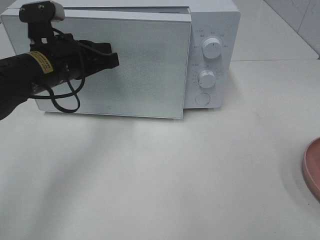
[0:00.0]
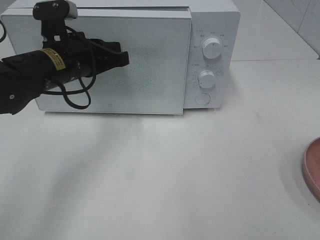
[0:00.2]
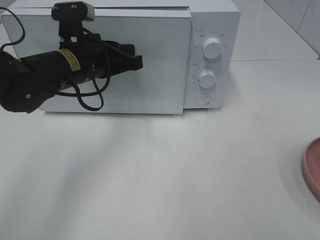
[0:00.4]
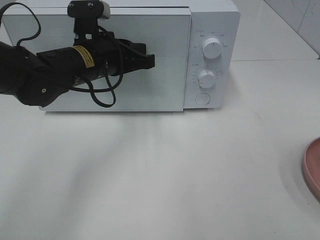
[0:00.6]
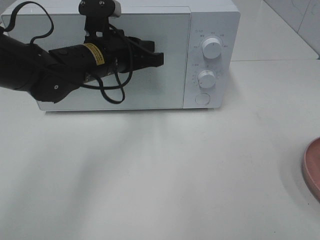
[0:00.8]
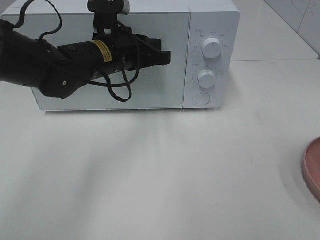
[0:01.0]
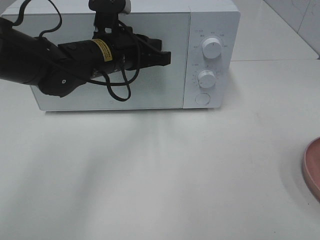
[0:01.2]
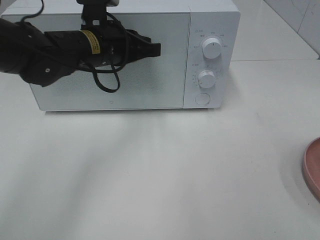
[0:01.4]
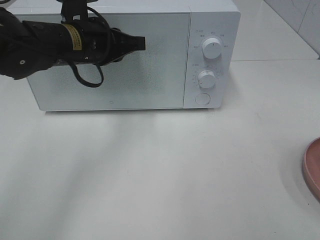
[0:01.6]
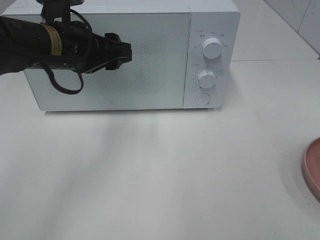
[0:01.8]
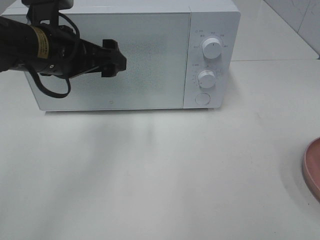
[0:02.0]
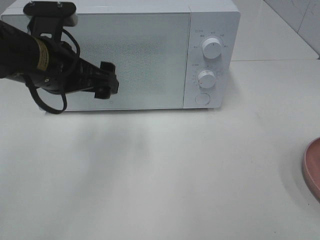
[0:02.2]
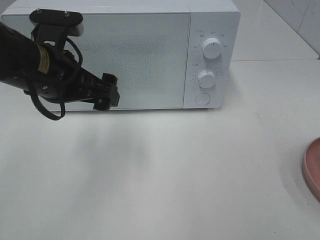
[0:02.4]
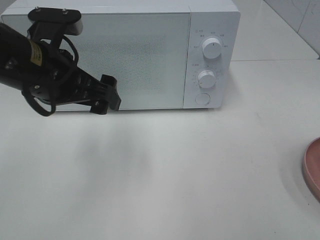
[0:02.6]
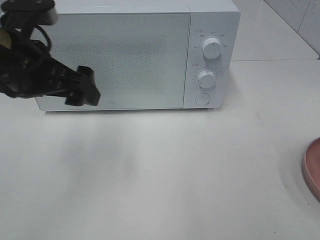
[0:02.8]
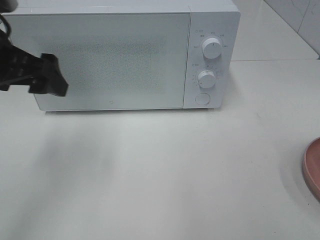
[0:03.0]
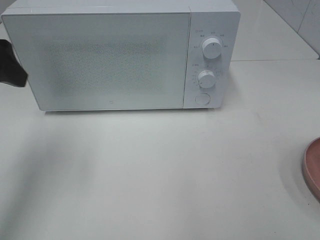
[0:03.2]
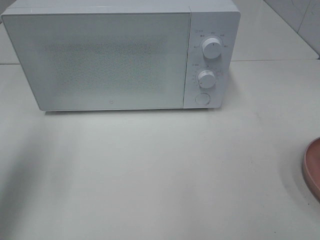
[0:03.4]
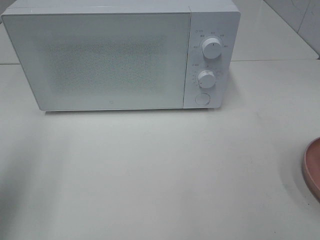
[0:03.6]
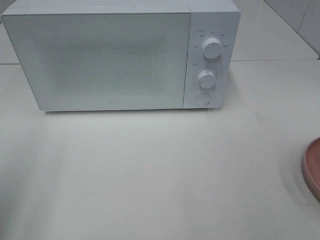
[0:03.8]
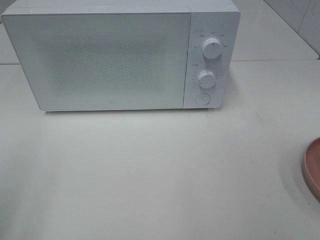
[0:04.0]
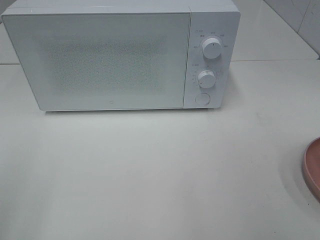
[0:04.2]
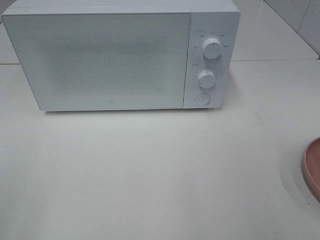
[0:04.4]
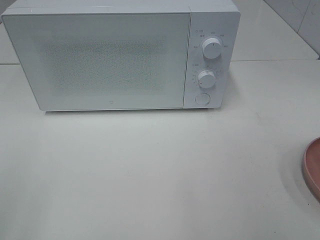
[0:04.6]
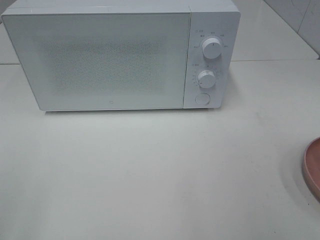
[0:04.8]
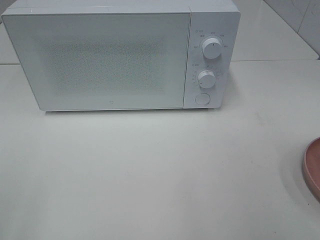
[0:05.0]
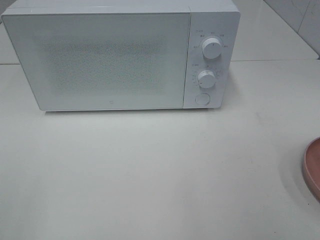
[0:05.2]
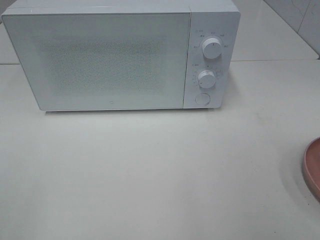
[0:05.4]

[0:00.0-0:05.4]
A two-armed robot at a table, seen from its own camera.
Task of the whole recording: Heat the burger.
0:00.0 to 0:01.4: The left gripper travels to the right by about 5 cm.
0:01.4 to 0:02.8: The left gripper is displaced backward and to the left by approximately 15 cm, and opens.
0:02.8 to 0:04.0: The left gripper heads backward and to the left, covering about 25 cm.

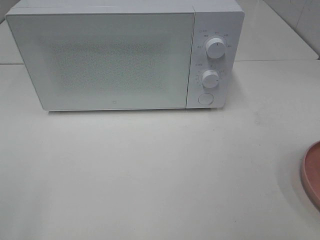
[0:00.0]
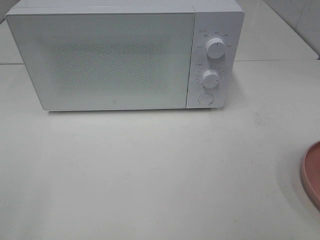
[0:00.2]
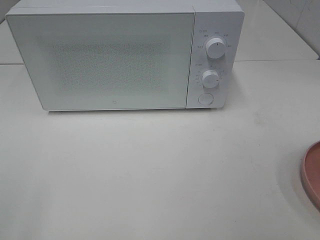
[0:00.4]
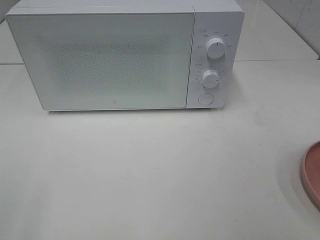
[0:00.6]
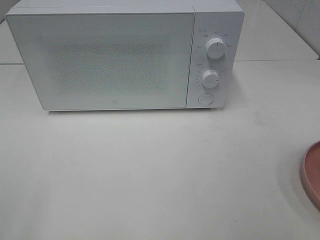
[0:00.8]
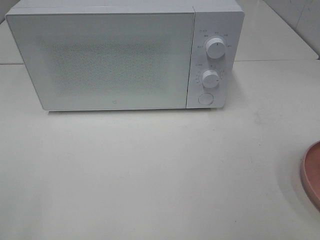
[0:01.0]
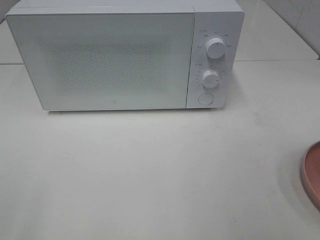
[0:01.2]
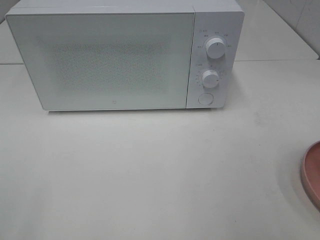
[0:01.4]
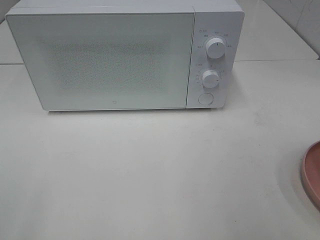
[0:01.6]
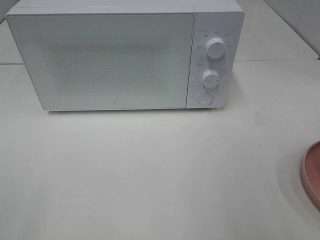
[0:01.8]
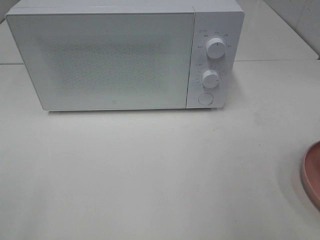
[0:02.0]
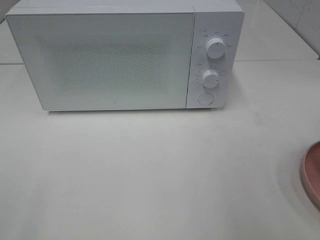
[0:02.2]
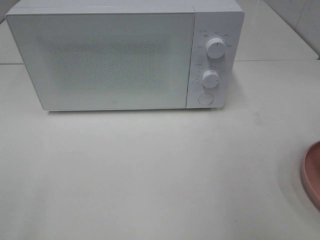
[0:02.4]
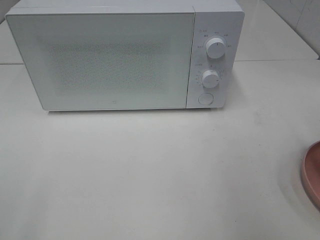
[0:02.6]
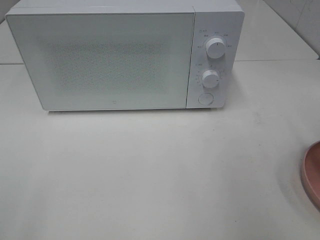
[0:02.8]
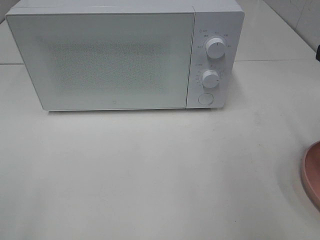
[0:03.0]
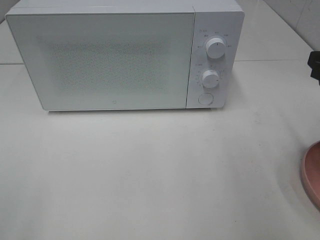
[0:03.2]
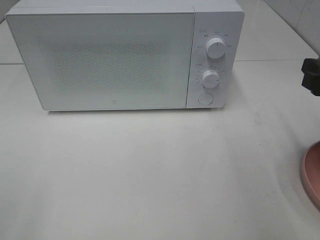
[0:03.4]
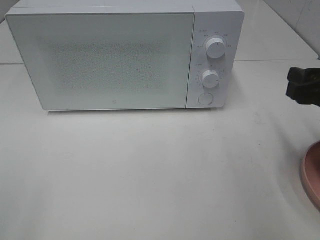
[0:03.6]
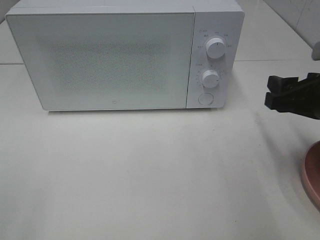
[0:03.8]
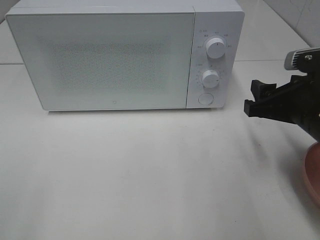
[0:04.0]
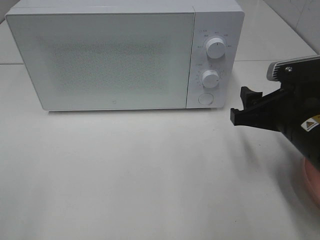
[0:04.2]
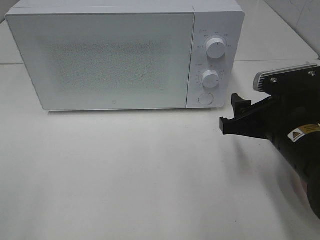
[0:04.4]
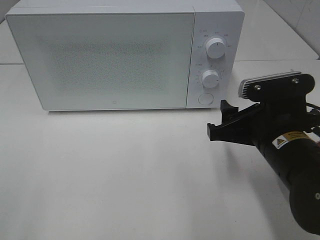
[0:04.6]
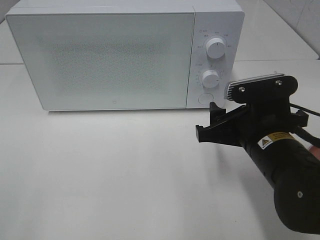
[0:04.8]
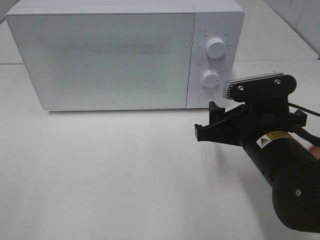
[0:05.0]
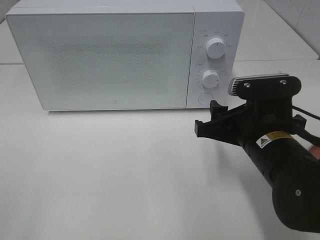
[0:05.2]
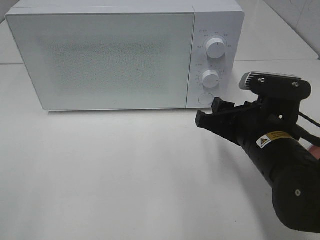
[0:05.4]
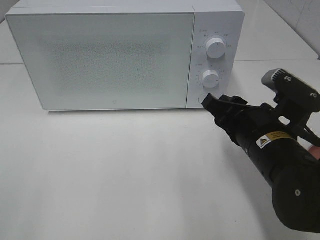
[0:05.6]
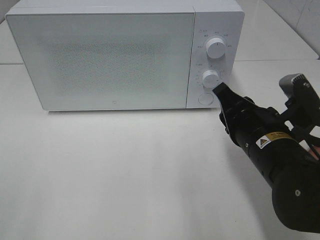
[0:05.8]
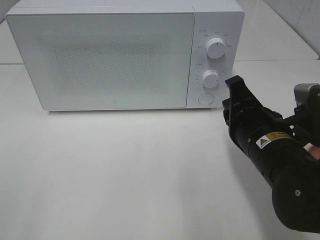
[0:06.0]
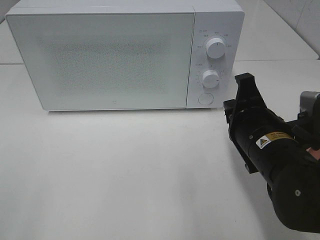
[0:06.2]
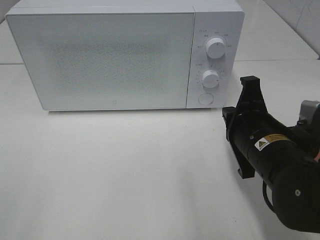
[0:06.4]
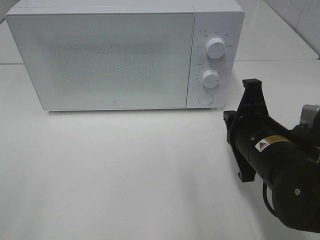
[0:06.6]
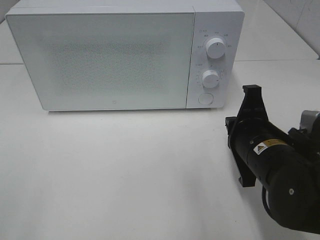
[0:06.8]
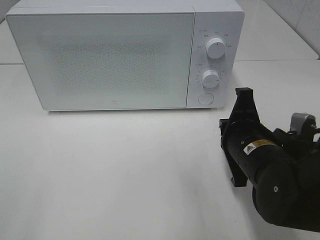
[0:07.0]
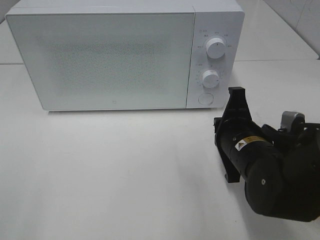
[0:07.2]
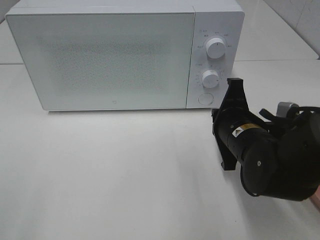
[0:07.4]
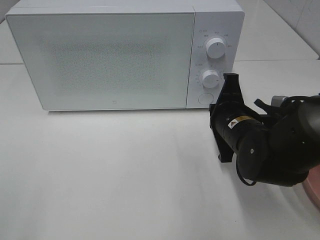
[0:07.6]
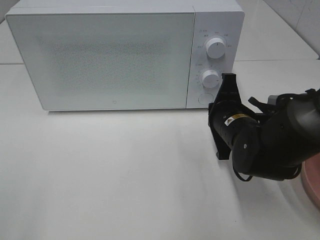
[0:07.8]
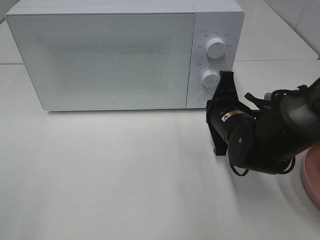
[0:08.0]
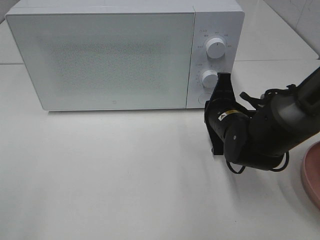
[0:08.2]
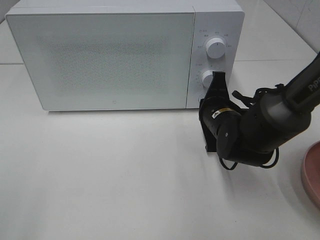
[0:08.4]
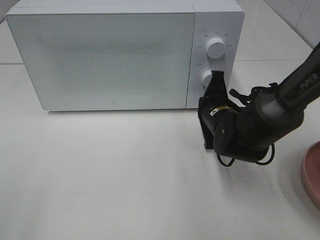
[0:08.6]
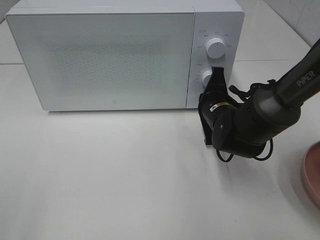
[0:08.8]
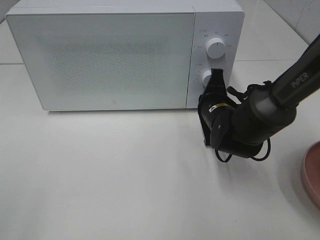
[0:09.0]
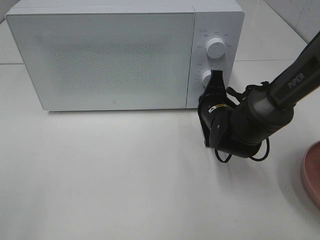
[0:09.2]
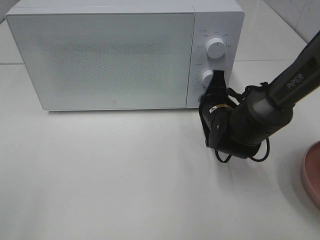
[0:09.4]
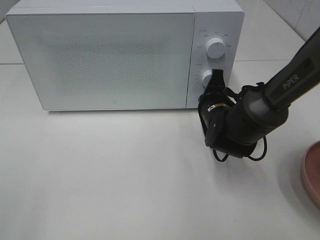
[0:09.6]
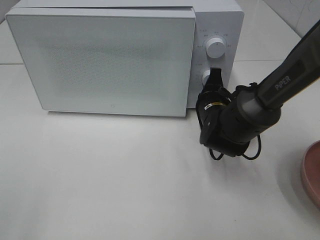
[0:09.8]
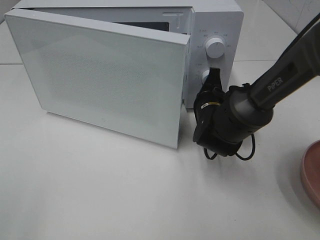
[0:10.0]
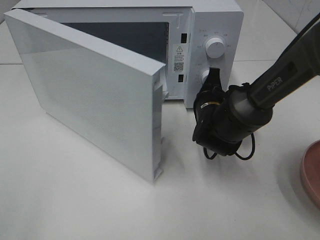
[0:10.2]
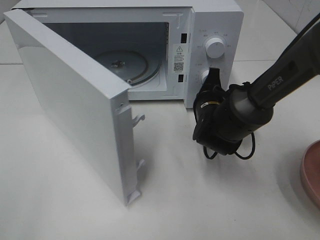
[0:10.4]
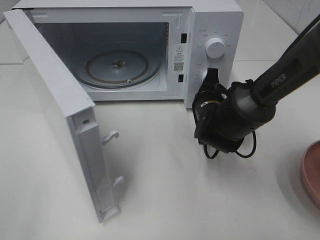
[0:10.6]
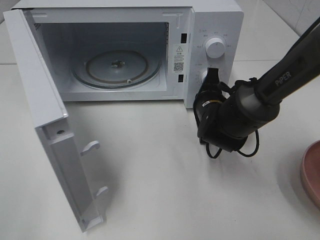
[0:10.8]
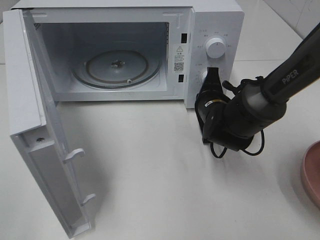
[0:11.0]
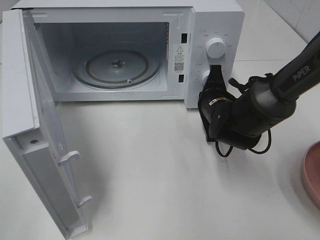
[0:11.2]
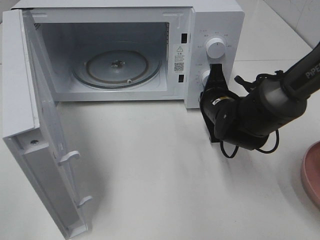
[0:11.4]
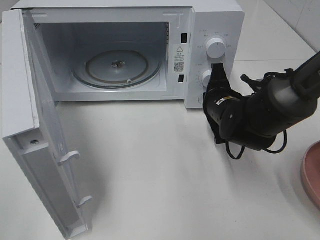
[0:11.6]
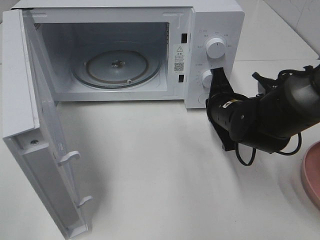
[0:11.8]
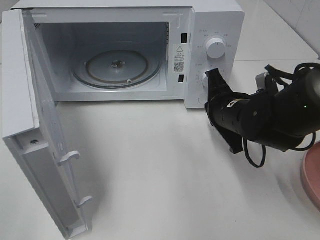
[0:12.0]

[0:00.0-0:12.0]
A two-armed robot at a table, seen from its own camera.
Task of the whole recording: Heat the burger.
Step, 0:00.0 to 0:11.6: Right hand: press the switch.
0:03.0 to 0:04.4: The right gripper heads downward and to the left, covering some 15 cm.
0:04.4 to 0:06.0: The right gripper closes up.
0:06.0 to 0:07.6: The right gripper is displaced forward by about 5 cm.
0:07.6 to 0:09.0: The right gripper travels forward by some 5 cm.
0:10.4 to 0:12.0: The right gripper shifts about 5 cm backward.

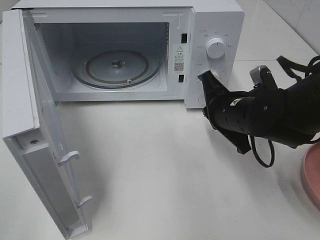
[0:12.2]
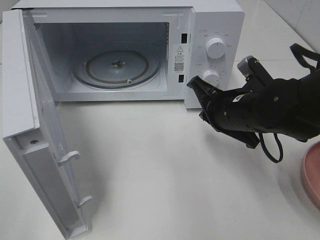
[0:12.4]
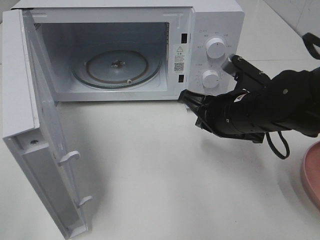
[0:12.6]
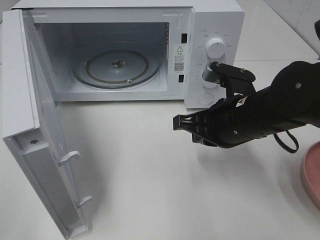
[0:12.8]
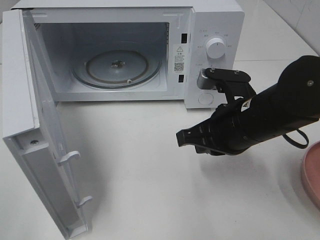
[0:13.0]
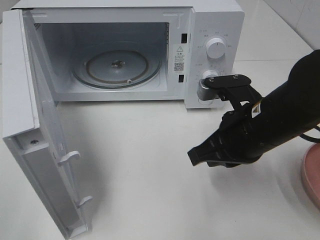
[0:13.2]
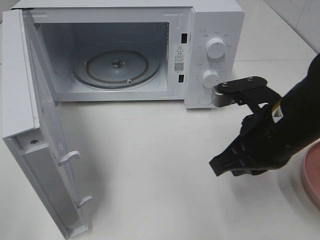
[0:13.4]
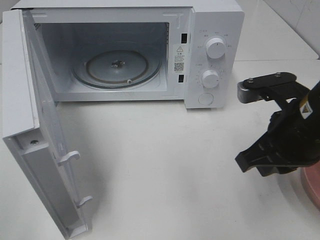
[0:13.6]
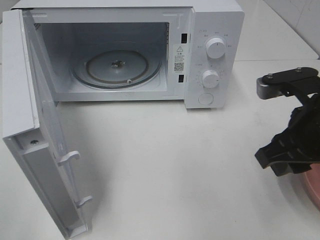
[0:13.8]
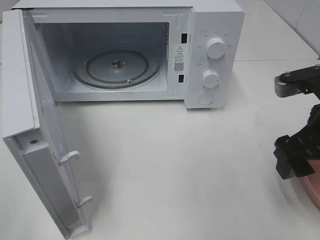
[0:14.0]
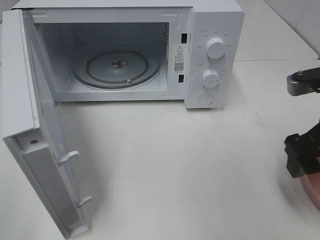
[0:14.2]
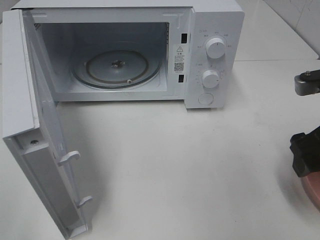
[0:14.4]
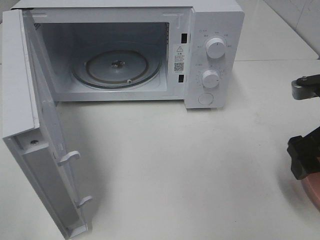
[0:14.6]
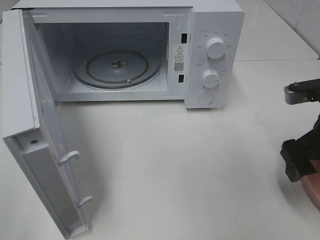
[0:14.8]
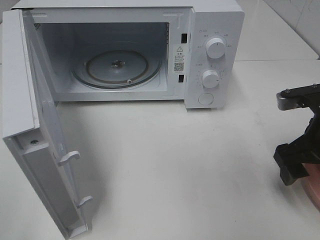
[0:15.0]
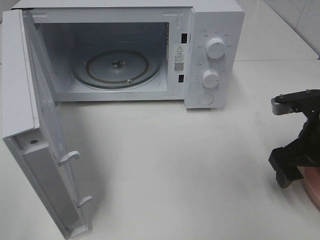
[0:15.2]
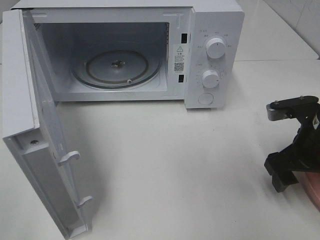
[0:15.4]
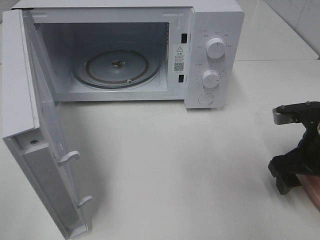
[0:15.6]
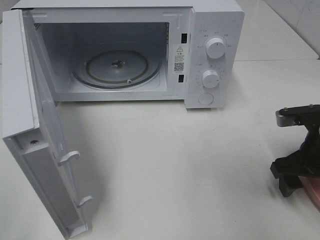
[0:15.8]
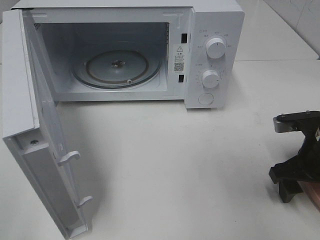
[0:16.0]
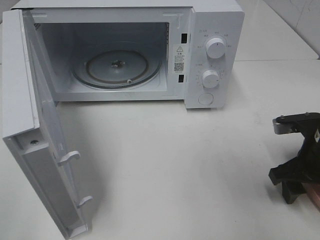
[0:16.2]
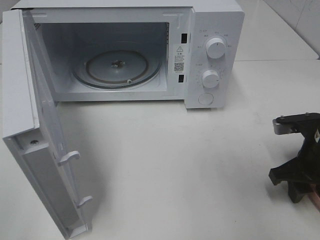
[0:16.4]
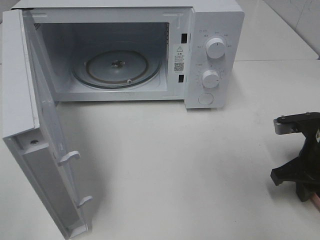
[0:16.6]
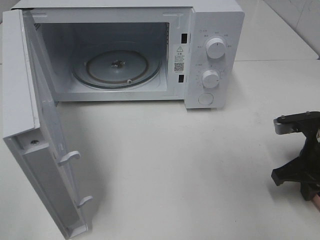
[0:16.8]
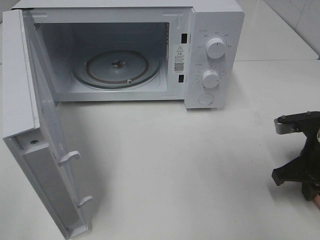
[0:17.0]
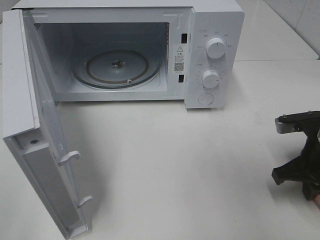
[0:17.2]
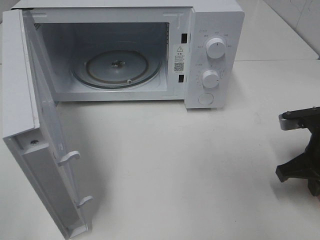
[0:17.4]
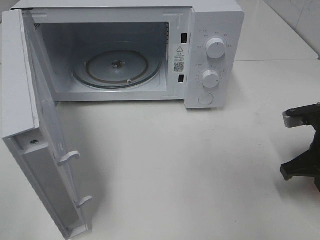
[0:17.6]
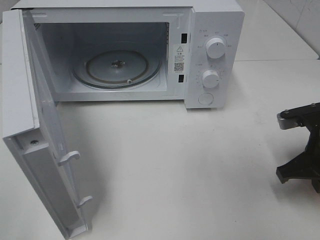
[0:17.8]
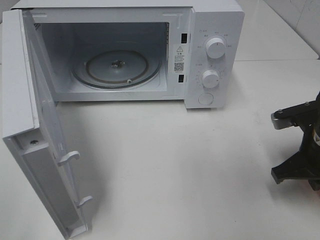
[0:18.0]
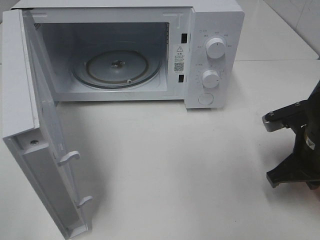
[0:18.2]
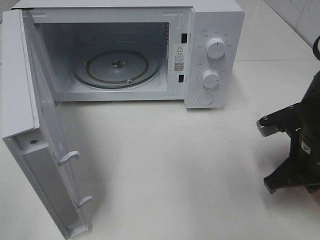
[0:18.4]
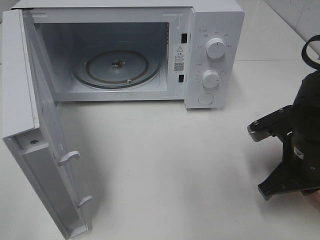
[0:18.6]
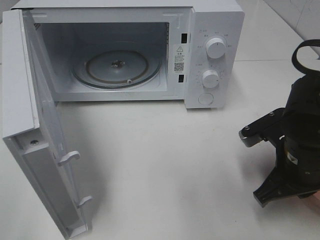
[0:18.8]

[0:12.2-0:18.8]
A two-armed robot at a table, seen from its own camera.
Task of the whole recording: Heat the burger.
Step, 0:12.2 to 0:17.2: Right hand: grab the plate with the hamburger.
0:12.2 to 0:13.8: The right gripper travels backward, upward and to the right by roughly 15 cm, and opens.
0:13.8 to 0:15.4: The right gripper shifts about 10 cm downward, and opens.
0:15.4 to 0:17.2: The right gripper closes.
0:17.2 to 0:18.8: The right gripper moves to the left, approximately 5 cm.
